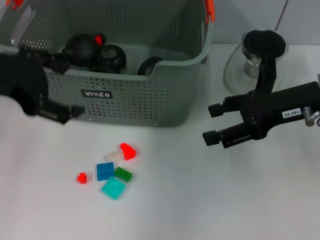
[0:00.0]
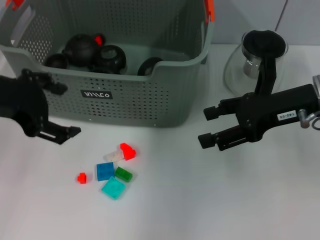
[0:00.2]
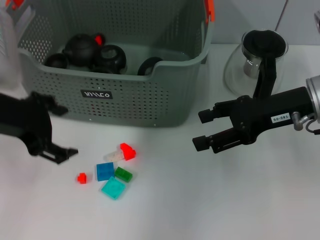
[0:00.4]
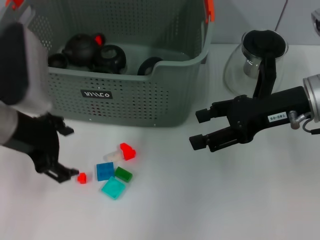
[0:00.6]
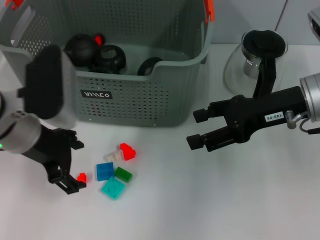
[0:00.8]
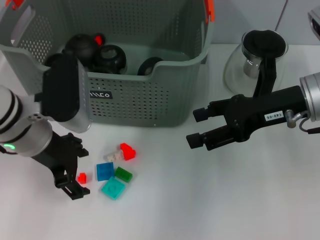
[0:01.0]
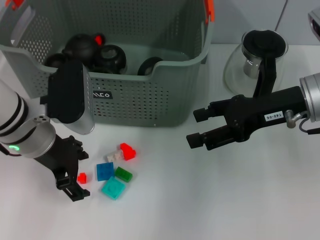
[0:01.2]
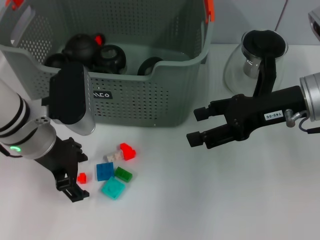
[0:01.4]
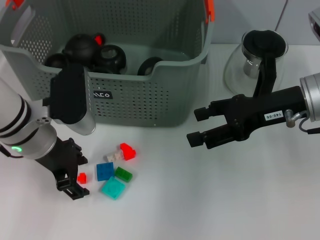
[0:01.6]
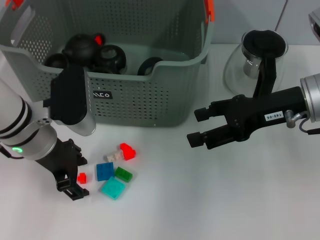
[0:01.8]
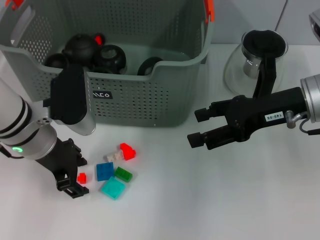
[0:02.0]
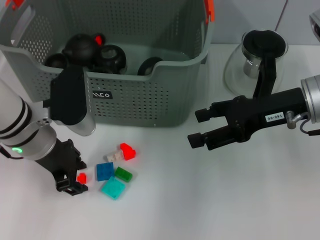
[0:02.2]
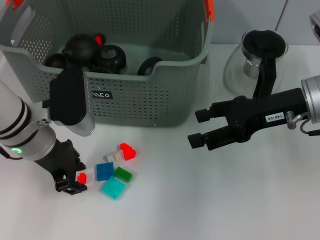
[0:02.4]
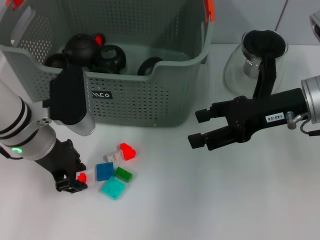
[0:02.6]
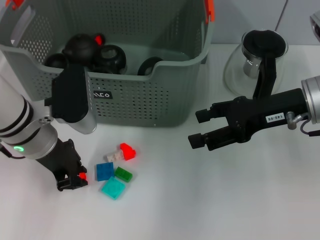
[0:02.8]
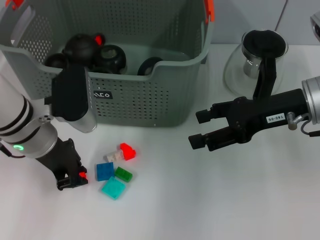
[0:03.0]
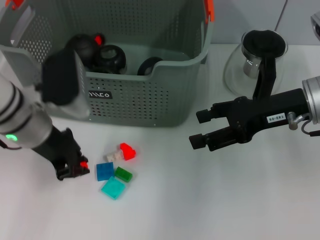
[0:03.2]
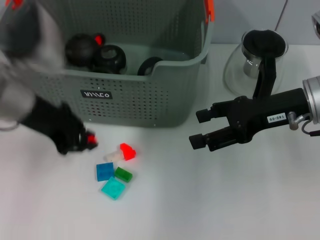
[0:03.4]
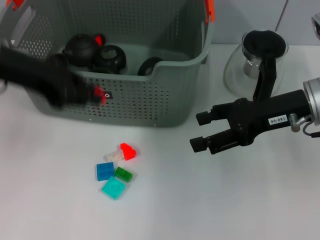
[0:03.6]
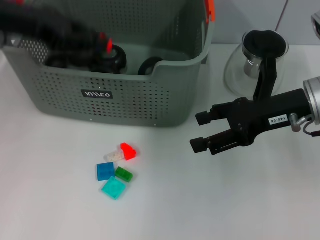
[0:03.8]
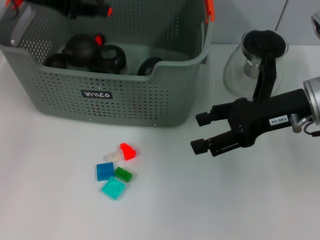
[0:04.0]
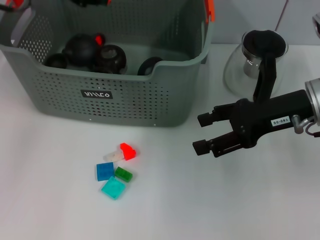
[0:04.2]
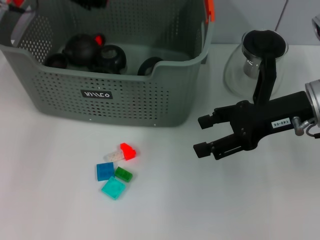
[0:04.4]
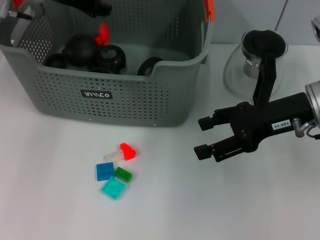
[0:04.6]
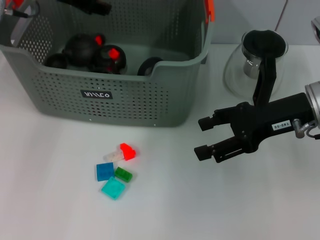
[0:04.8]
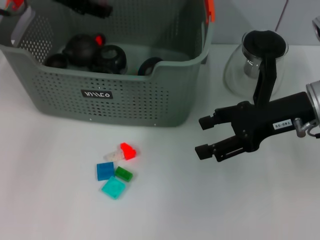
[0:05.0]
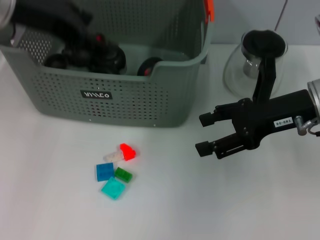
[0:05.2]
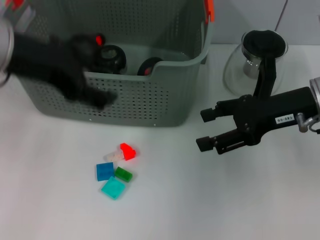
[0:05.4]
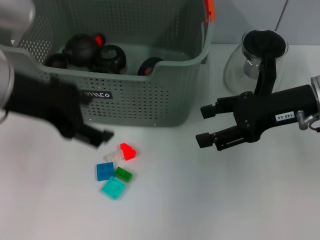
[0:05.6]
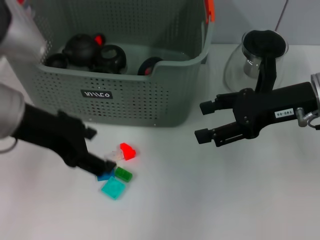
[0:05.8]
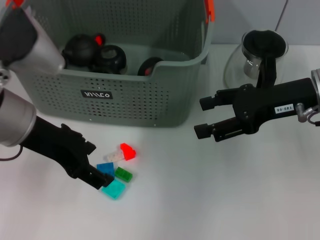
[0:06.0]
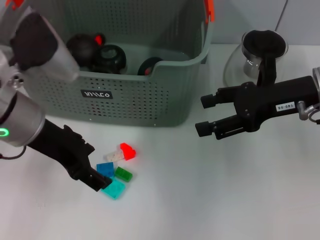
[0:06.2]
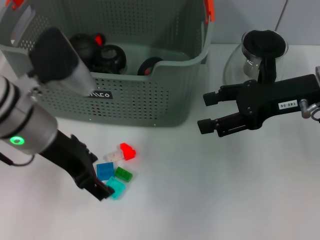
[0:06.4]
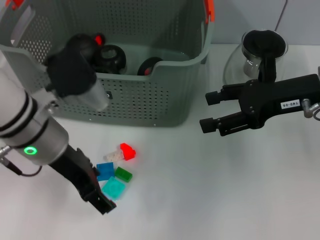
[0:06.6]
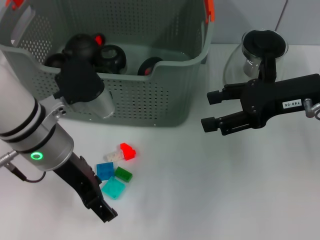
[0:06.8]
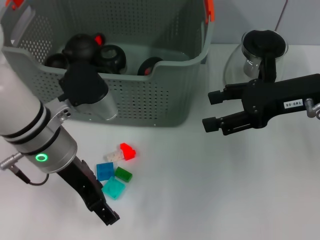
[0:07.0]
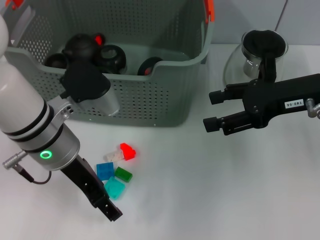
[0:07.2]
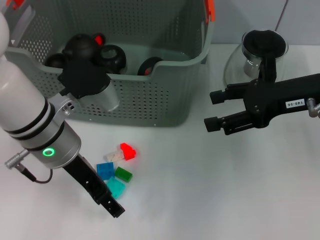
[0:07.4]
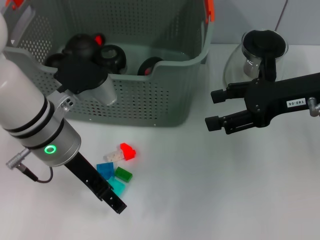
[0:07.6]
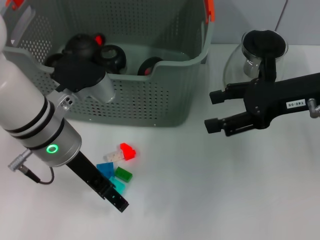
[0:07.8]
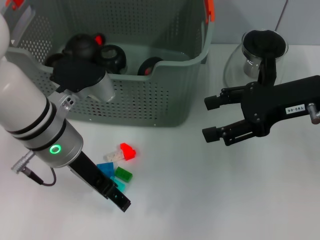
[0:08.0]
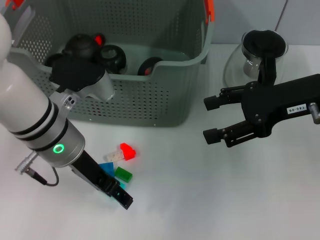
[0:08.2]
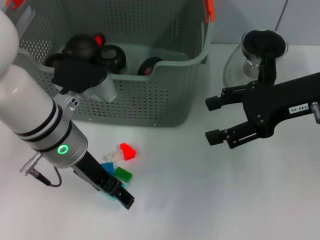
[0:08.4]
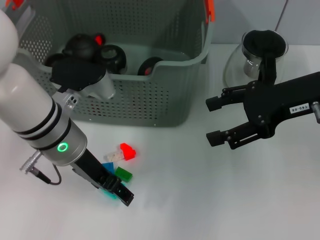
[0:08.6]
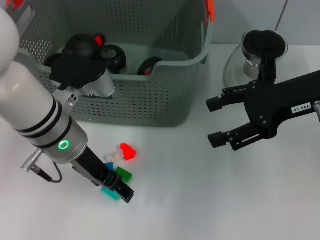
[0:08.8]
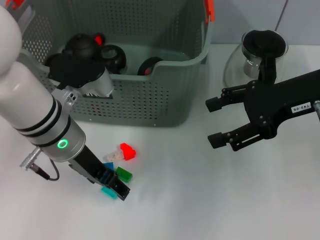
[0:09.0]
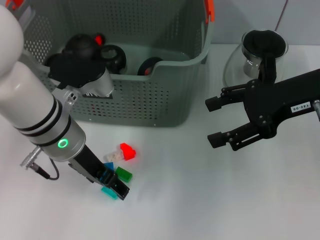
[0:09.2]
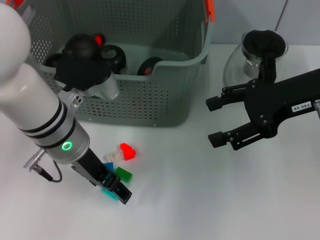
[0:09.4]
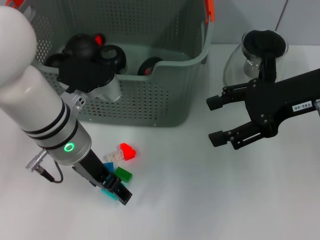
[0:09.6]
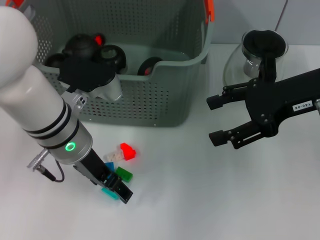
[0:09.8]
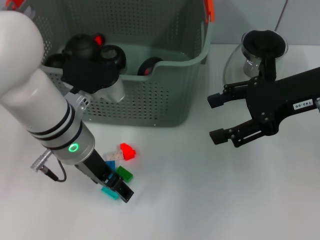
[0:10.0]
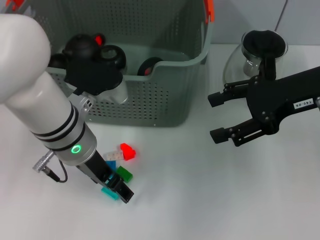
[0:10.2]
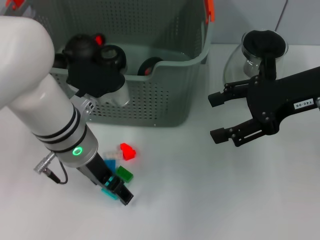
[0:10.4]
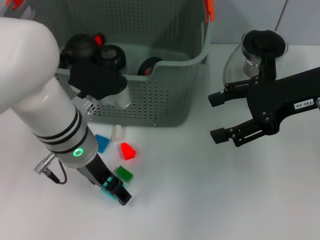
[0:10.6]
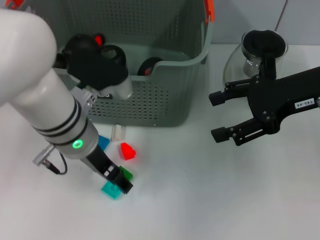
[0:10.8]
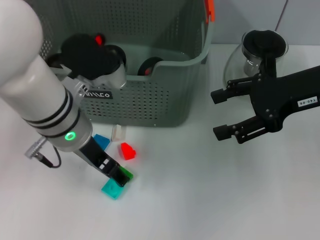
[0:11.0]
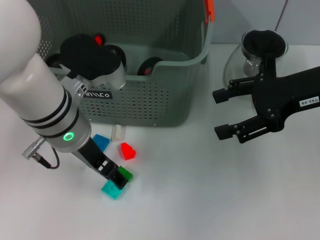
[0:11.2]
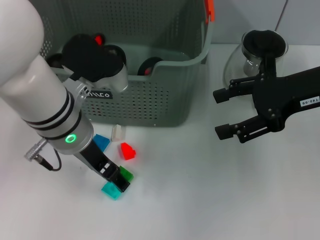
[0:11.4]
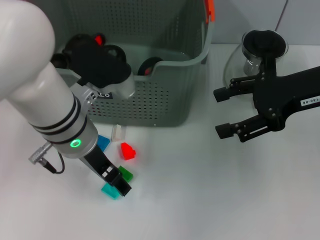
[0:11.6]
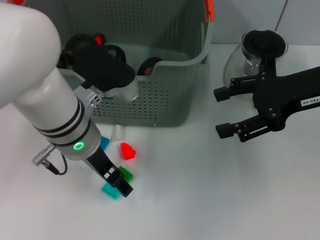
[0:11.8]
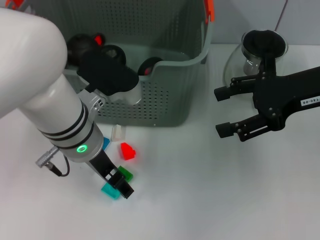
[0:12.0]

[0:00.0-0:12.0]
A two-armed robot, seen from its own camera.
Task of the whole recording: pick up the teacup on the table and place it into the storage bin, pick up the block on the table and place it into the storage bin.
Step, 0:00.0 to 0:02.8: Grasp the orange block with left gripper.
Step, 0:03.2 to 0:04.8: Place the orange block in the storage box with left gripper.
0:00.0 to 0:01.6: The left gripper goes some 15 cm downward and to the right.
0:01.6 to 0:03.0: The left gripper closes.
0:03.0 to 0:04.4: The left gripper goes approximately 20 cm upward and forward.
0:04.4 to 0:06.0: The left gripper moves backward, roughly 15 cm, and opens its fingers.
0:06.0 to 0:07.6: The left gripper heads downward, covering about 5 cm.
0:07.6 to 0:12.0: The grippers stay close to where they were, moving slightly.

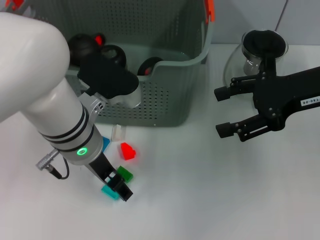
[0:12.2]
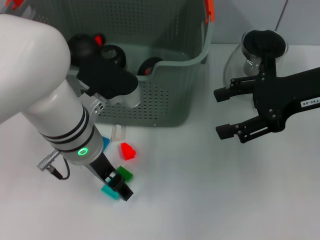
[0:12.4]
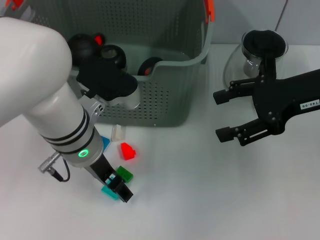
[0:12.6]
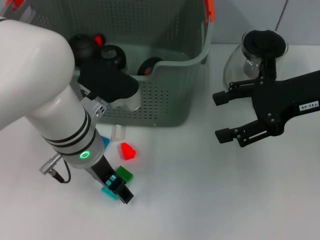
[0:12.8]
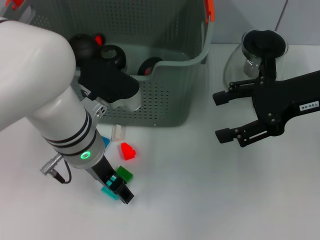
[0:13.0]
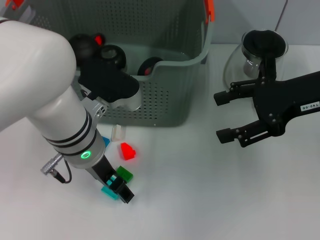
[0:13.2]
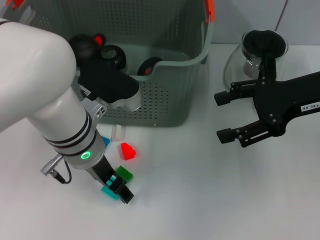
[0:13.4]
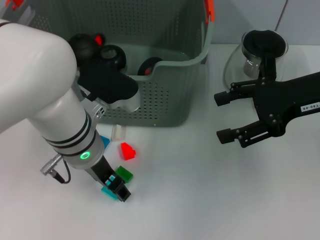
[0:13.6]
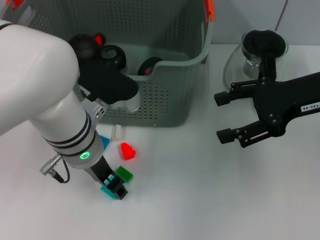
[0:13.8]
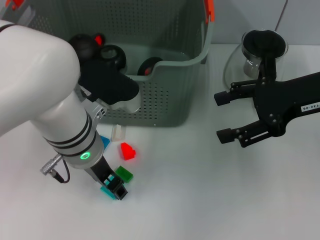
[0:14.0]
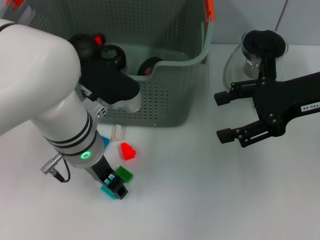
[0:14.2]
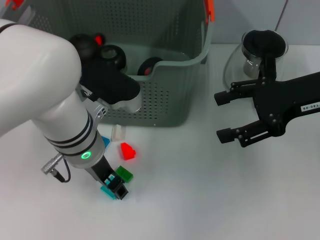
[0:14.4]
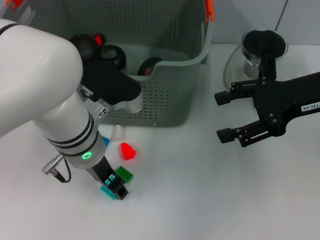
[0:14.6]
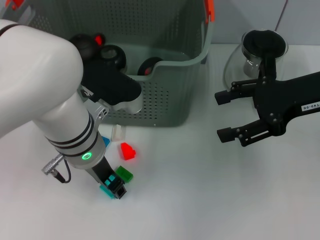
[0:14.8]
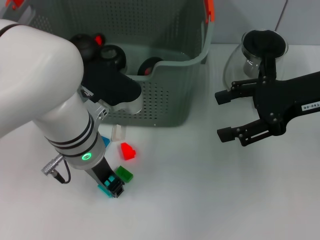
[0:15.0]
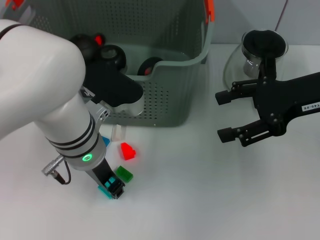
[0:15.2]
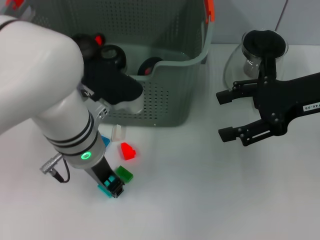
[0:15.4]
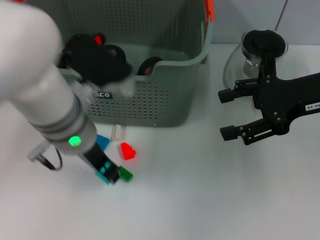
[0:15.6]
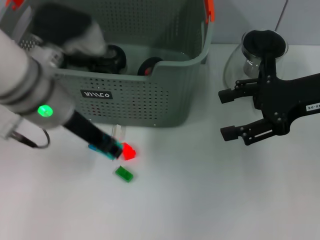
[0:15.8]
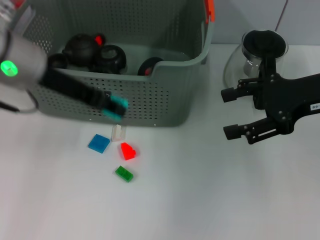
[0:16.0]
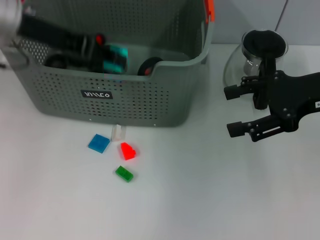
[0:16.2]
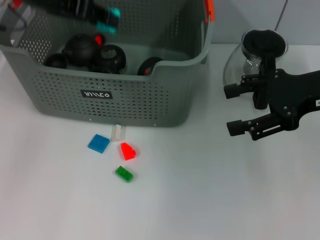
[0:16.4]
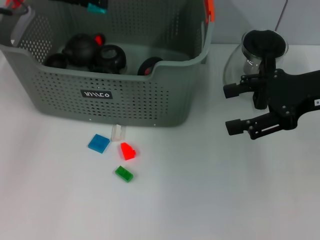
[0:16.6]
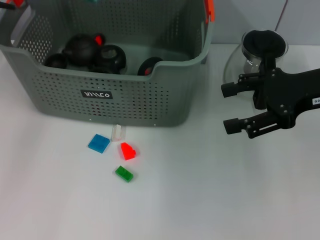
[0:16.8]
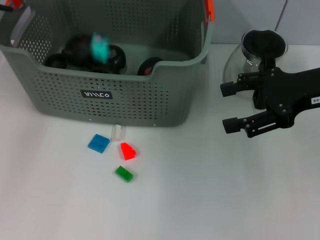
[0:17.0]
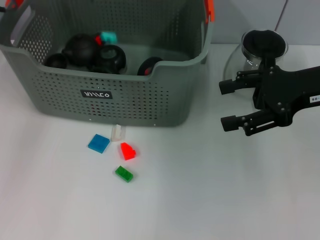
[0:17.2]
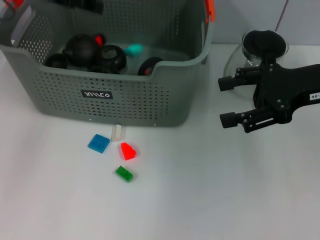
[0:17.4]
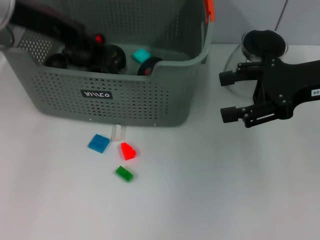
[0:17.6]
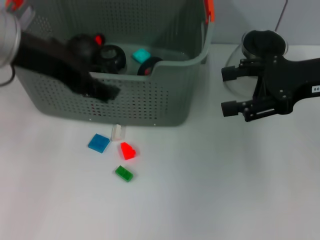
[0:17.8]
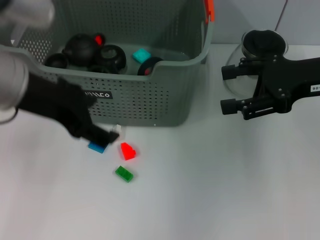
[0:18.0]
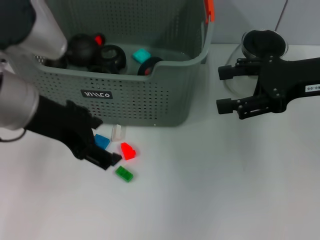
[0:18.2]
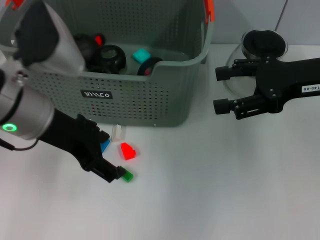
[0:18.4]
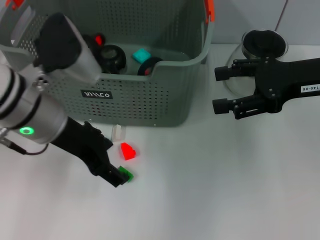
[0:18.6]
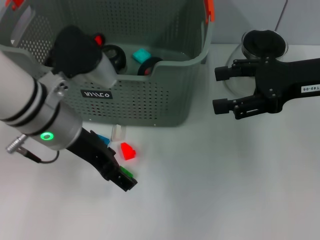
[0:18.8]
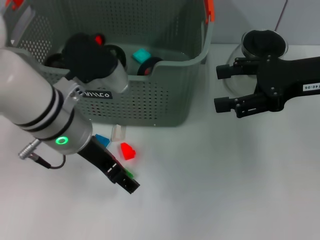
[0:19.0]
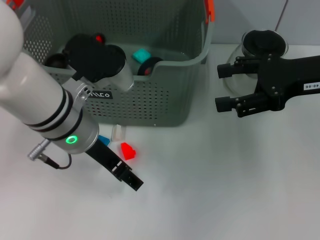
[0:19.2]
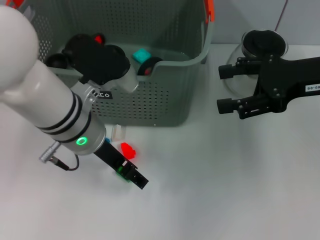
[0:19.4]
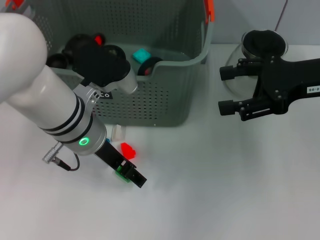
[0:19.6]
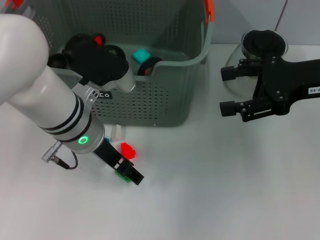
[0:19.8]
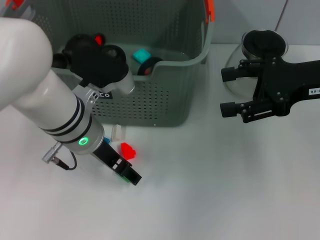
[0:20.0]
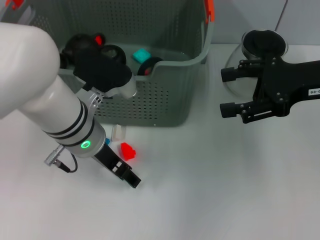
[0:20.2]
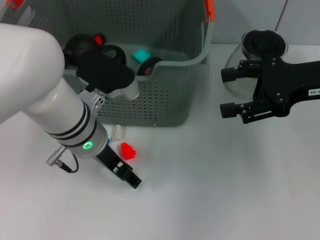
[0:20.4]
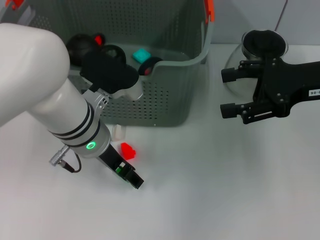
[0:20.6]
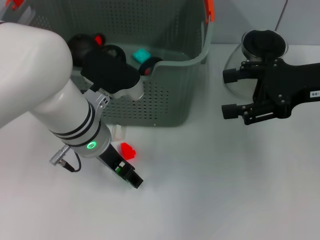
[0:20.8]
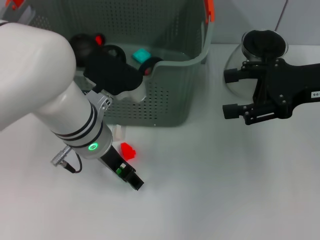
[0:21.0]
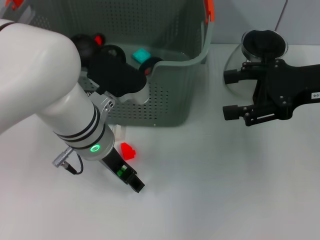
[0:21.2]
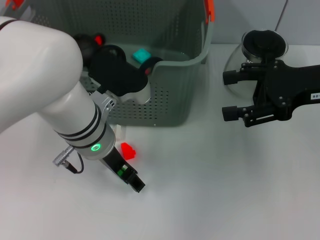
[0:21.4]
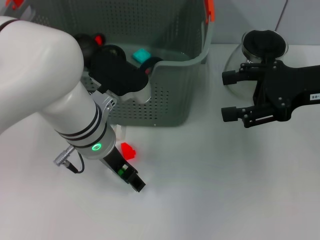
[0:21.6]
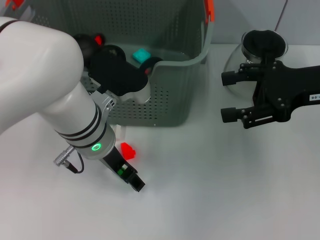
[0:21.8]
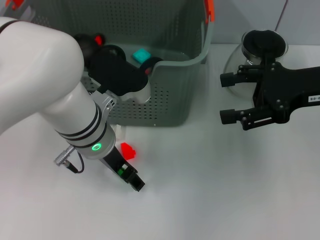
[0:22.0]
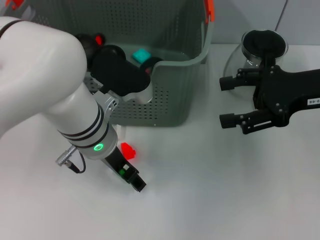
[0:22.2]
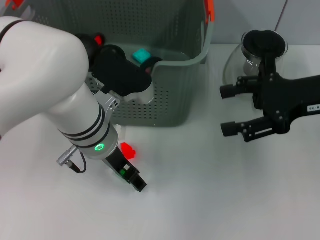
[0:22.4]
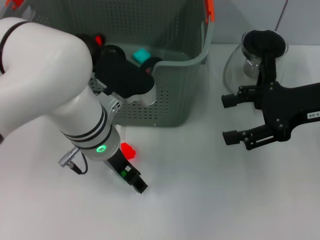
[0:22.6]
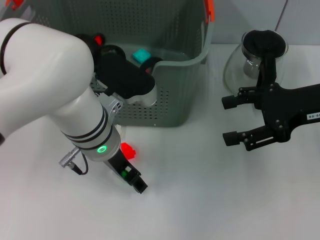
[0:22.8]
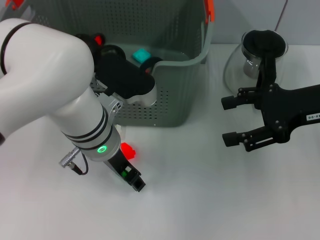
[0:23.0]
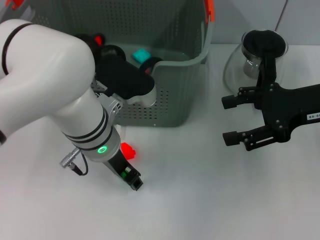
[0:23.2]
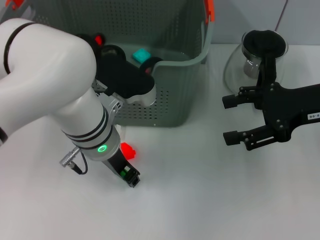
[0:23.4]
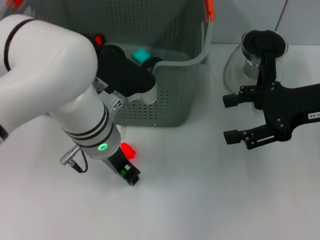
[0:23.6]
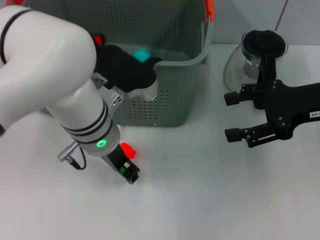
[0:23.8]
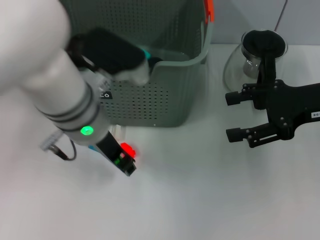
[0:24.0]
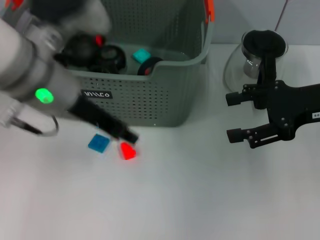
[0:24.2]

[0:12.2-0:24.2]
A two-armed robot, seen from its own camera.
Task of the whole recording: pick up the teacup on the table and place it into the storage bin, pick up the block on the table and place it into the storage bin.
Step, 0:12.2 to 0:14.2: Grasp the light blue block with left gripper.
Step, 0:14.4 to 0:17.0: Place the light blue block in the storage box with left gripper.
Step, 0:17.4 to 0:23.4: Grasp the green block with left gripper.
0:12.2 to 0:13.8: Neither gripper changes place.
0:13.8 to 0:15.2: The left gripper closes.
0:15.2 to 0:16.6: The left gripper heads upward, to the left and forward, covering about 25 cm.
0:16.6 to 0:18.2: The left gripper heads backward, covering some 15 cm, and opens.
0:18.2 to 0:19.8: The left gripper is displaced downward and to the right by about 10 cm.
0:19.8 to 0:22.6: The grippers stay close to where they were, moving slightly.
0:22.6 to 0:24.2: The left gripper goes about 10 cm upward and to the left, and closes its fingers.
